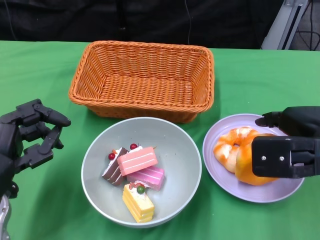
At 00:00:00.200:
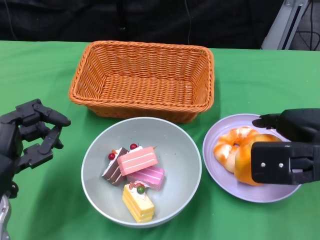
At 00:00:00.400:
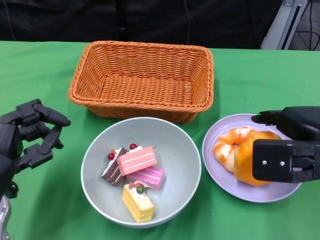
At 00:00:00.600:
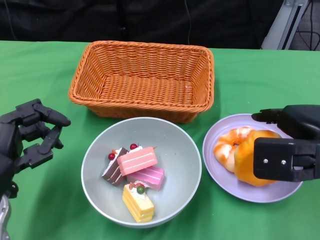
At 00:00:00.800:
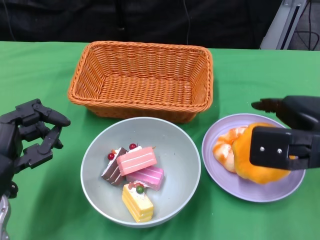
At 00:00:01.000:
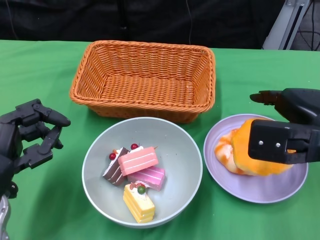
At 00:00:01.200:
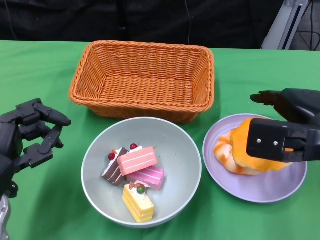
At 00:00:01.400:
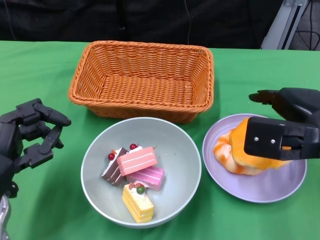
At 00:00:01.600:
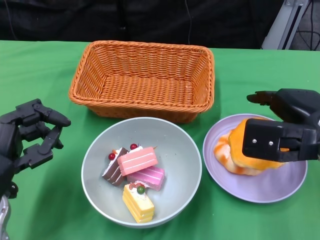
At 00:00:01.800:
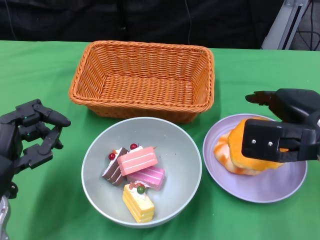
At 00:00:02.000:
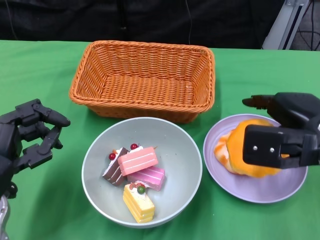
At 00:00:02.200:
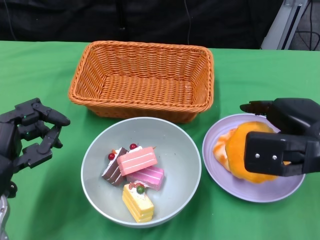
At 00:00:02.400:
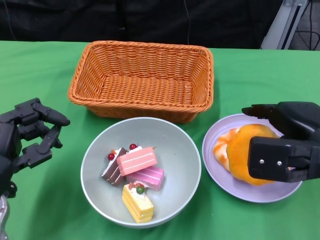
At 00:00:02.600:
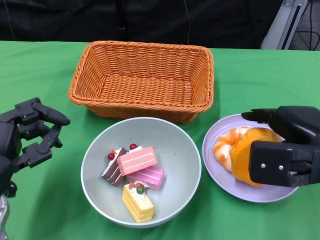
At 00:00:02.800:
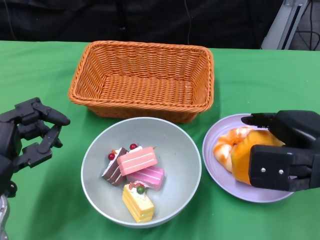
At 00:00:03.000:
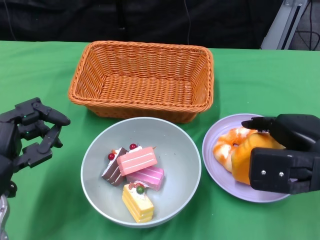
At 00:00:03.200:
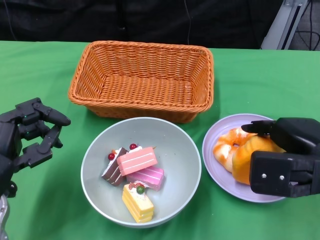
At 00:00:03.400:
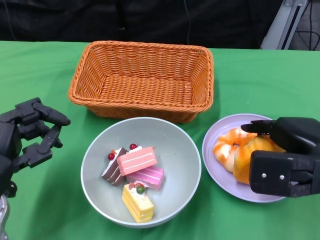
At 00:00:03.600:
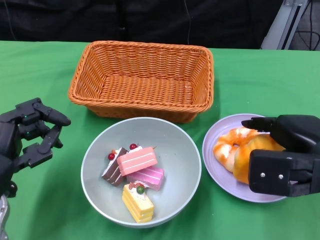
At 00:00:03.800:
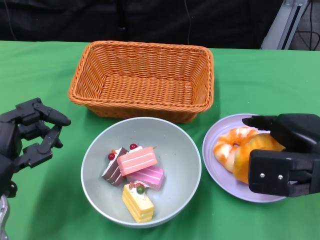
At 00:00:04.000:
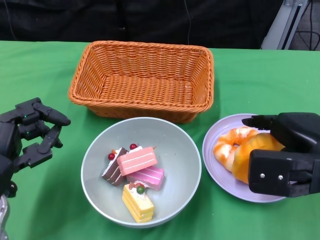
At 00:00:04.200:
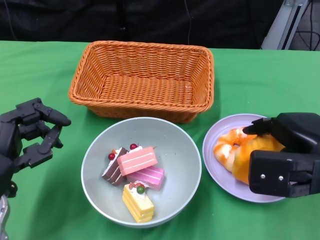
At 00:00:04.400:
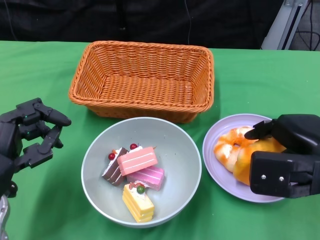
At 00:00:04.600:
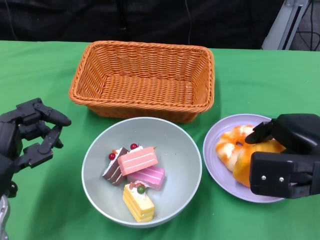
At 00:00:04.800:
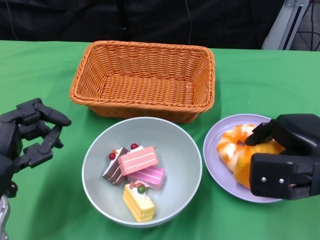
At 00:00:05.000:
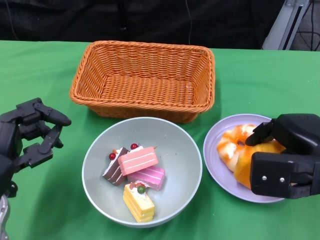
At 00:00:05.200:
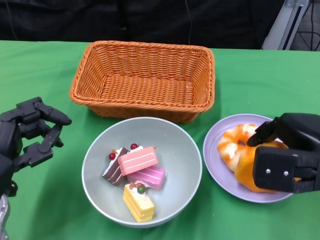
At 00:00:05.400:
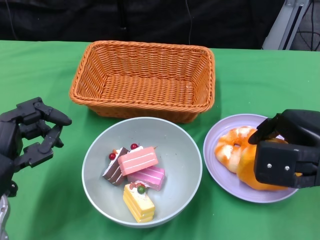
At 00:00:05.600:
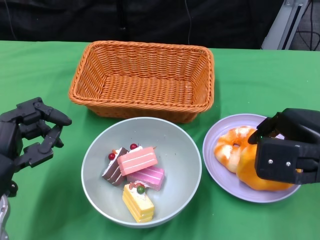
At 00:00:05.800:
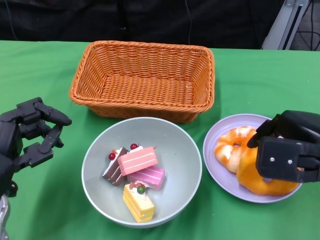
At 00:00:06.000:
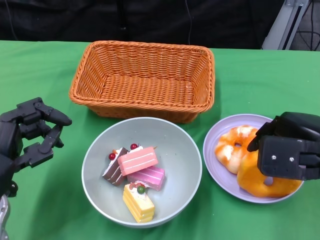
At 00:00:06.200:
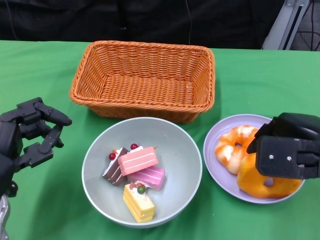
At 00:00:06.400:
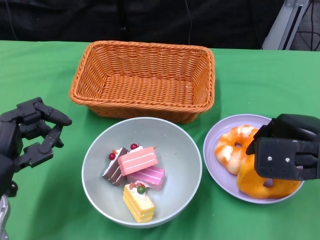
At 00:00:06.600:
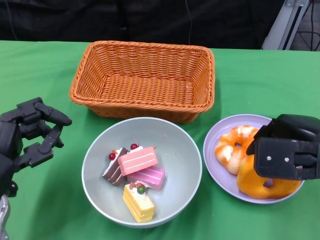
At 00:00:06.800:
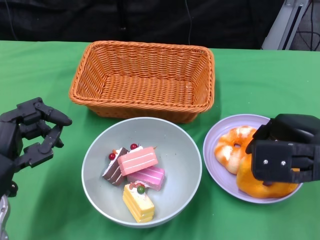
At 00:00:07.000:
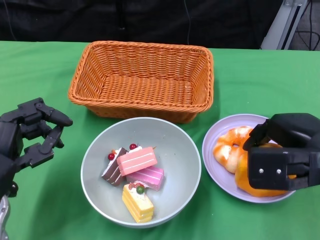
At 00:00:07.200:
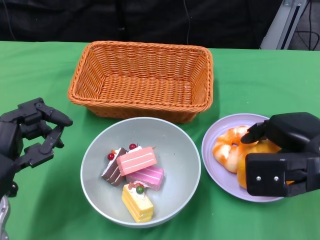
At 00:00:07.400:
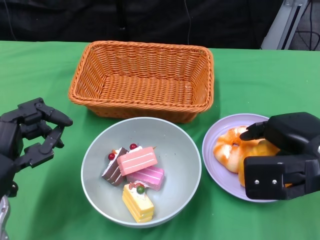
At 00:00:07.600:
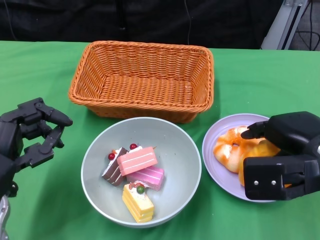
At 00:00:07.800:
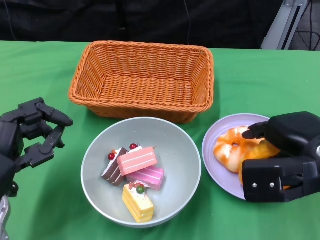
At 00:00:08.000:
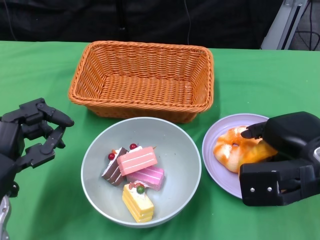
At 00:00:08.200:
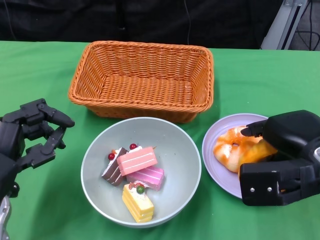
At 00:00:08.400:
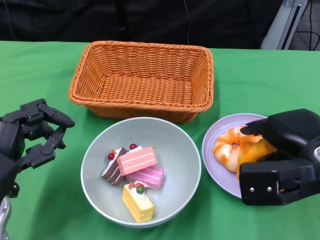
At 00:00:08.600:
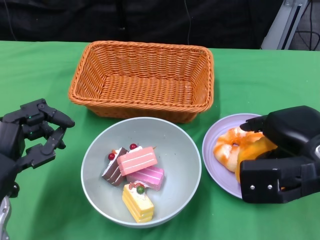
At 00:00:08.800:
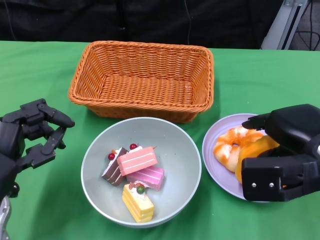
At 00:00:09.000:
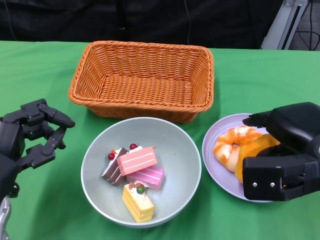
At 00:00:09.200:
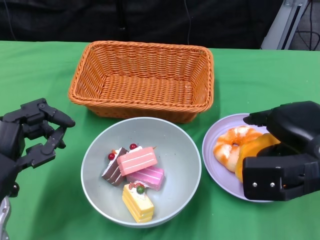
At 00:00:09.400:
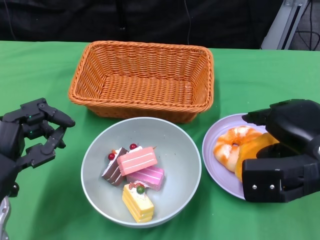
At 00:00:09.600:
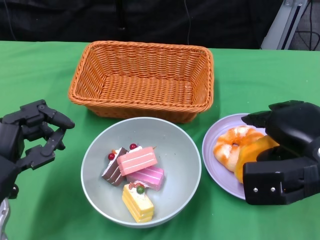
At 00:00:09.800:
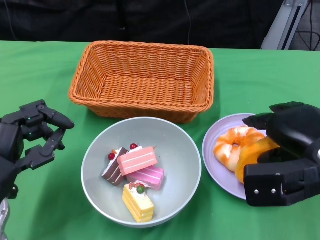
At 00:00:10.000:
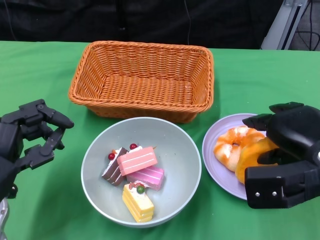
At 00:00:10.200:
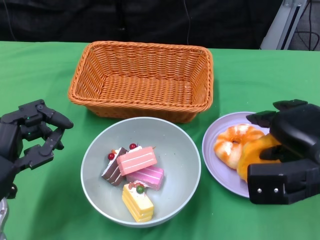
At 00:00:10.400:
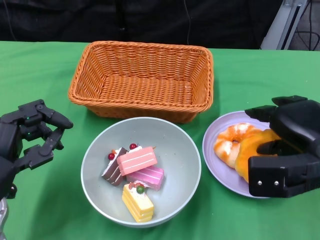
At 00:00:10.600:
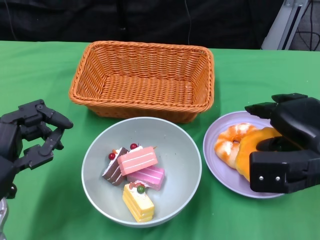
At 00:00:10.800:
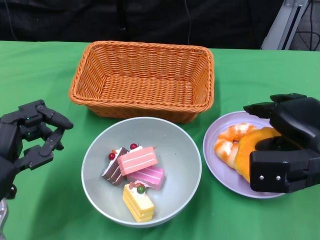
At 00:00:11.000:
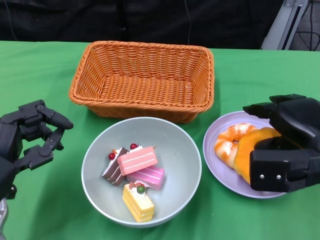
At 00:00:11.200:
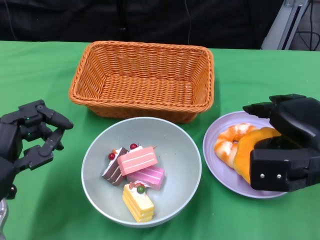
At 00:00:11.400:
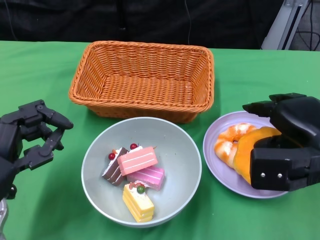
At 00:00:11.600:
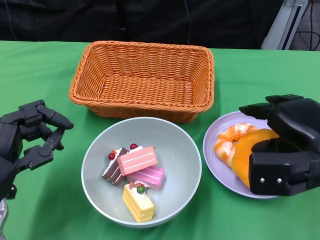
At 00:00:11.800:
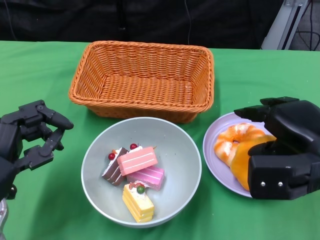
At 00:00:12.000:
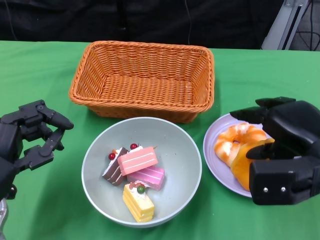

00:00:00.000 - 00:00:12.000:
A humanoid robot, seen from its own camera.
00:00:00.000 - 00:00:03.000: The hands make only small movements.
00:00:03.000 - 00:00:04.400: Neither hand changes place.
00:00:04.400 - 00:00:12.000: The hands stay close to where they were, moving slightly.

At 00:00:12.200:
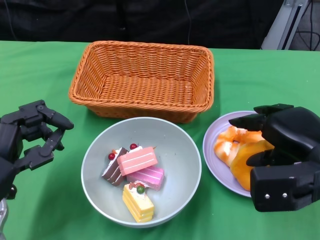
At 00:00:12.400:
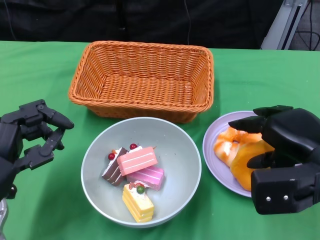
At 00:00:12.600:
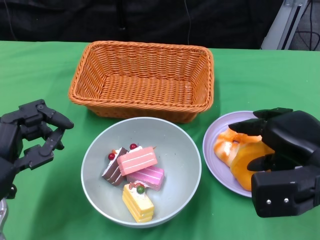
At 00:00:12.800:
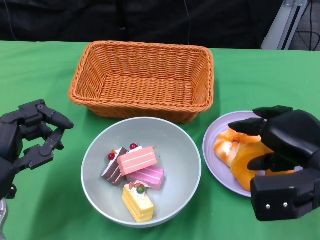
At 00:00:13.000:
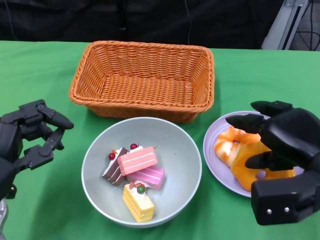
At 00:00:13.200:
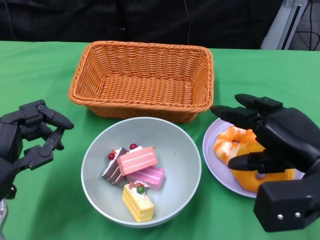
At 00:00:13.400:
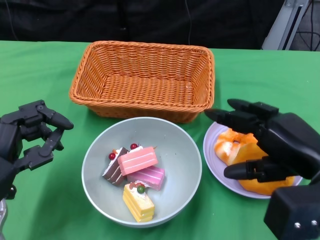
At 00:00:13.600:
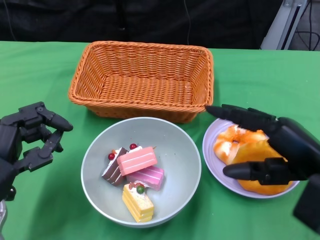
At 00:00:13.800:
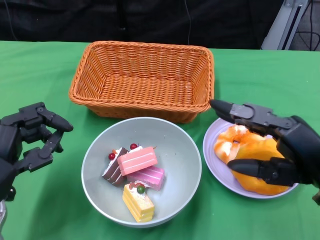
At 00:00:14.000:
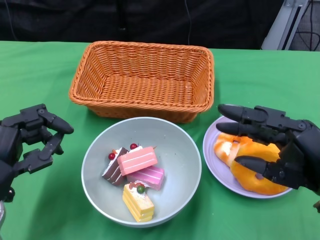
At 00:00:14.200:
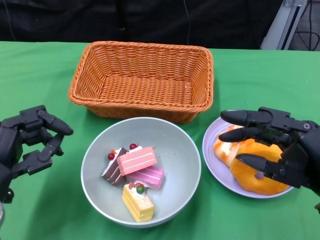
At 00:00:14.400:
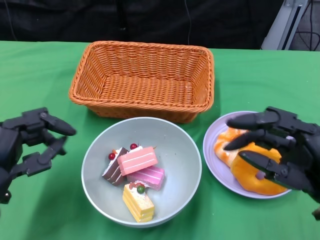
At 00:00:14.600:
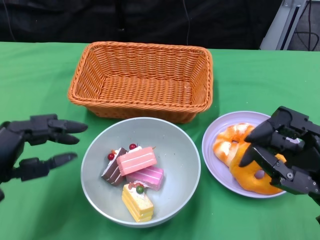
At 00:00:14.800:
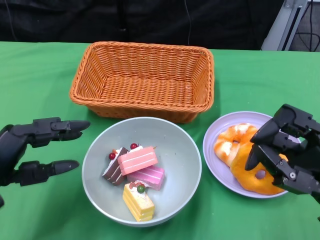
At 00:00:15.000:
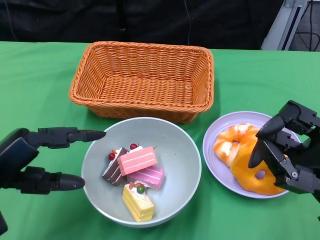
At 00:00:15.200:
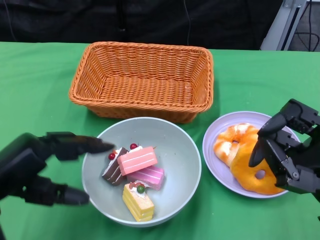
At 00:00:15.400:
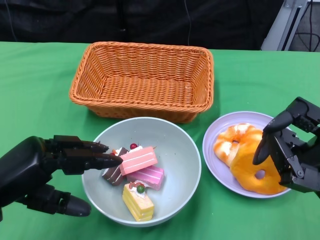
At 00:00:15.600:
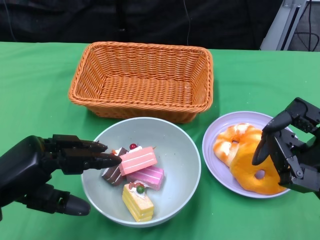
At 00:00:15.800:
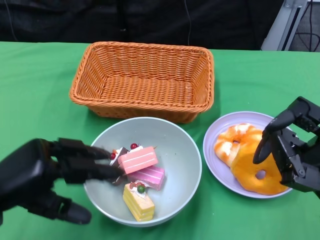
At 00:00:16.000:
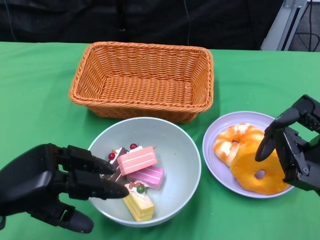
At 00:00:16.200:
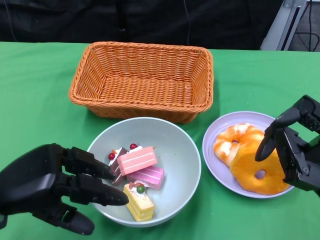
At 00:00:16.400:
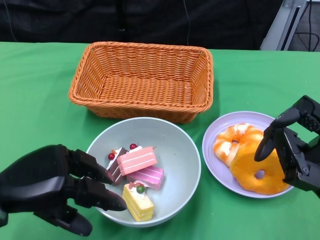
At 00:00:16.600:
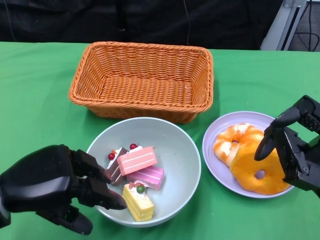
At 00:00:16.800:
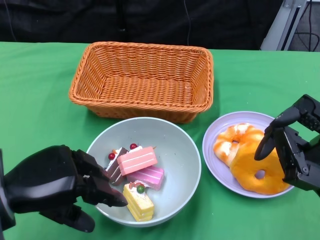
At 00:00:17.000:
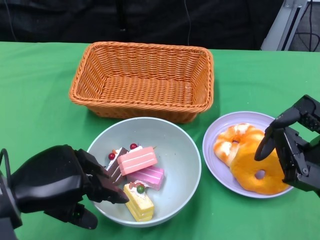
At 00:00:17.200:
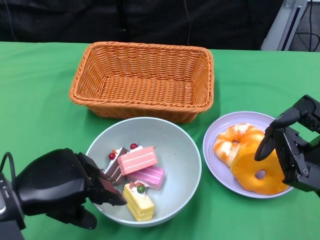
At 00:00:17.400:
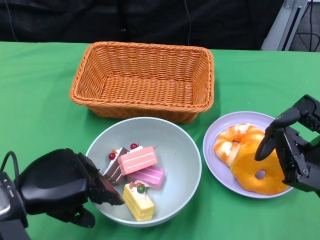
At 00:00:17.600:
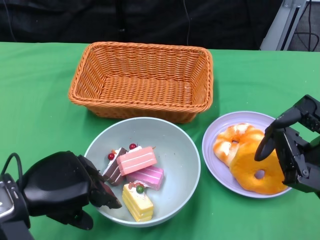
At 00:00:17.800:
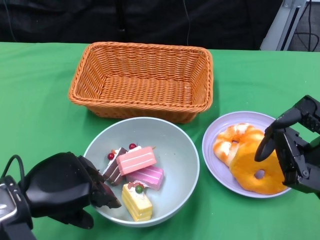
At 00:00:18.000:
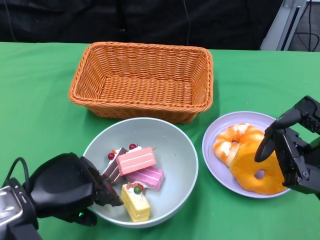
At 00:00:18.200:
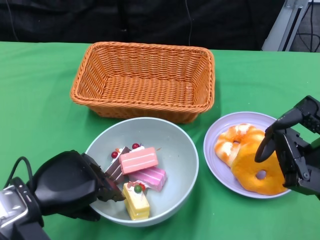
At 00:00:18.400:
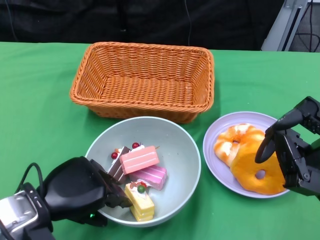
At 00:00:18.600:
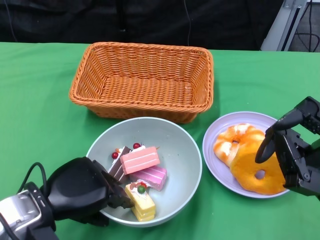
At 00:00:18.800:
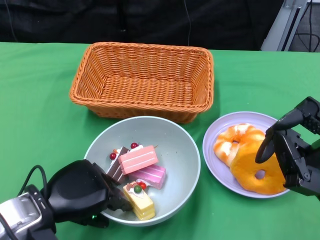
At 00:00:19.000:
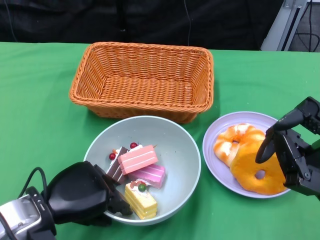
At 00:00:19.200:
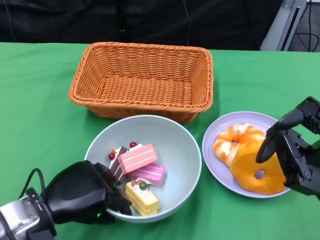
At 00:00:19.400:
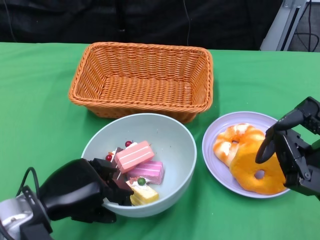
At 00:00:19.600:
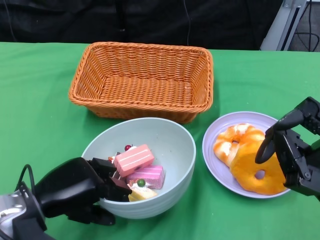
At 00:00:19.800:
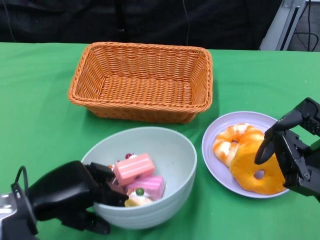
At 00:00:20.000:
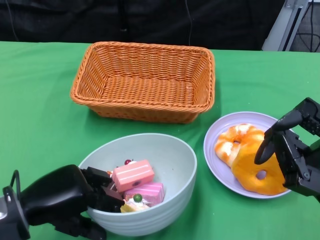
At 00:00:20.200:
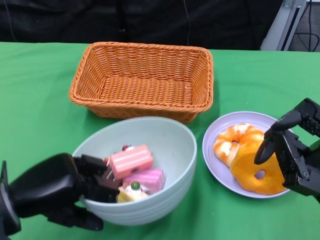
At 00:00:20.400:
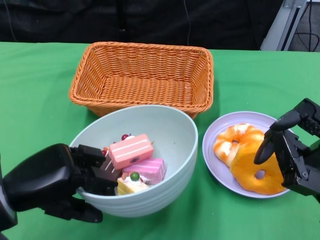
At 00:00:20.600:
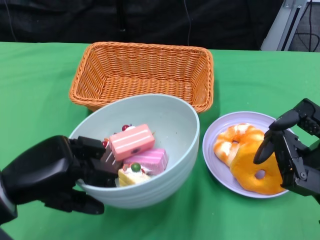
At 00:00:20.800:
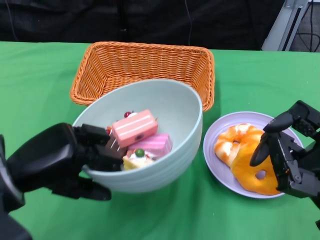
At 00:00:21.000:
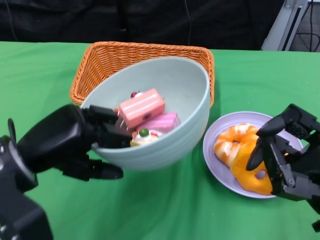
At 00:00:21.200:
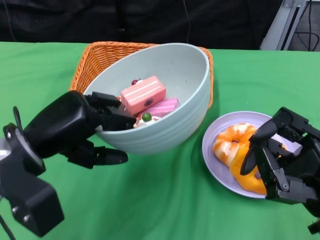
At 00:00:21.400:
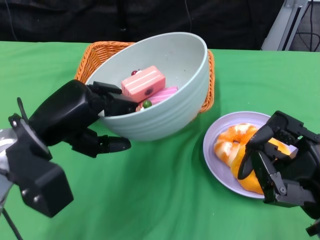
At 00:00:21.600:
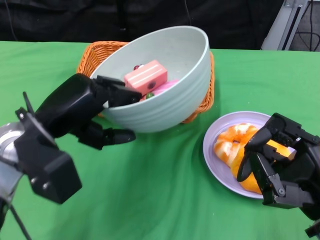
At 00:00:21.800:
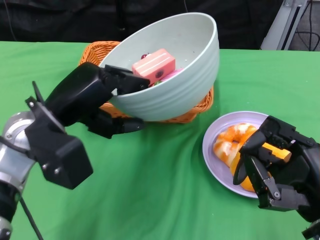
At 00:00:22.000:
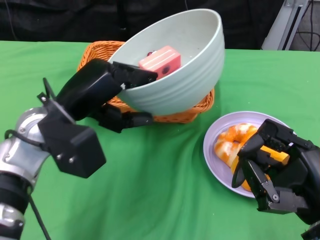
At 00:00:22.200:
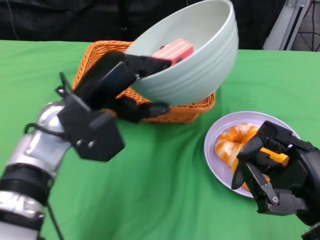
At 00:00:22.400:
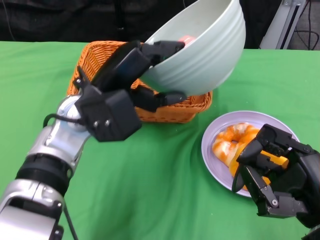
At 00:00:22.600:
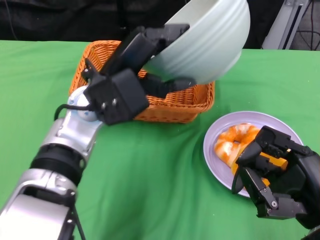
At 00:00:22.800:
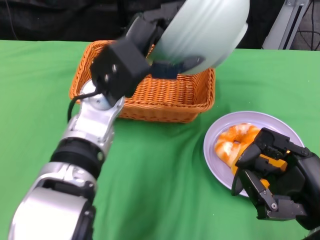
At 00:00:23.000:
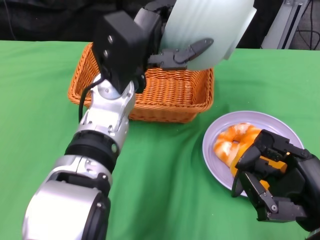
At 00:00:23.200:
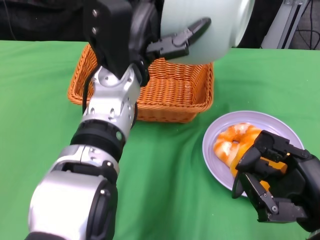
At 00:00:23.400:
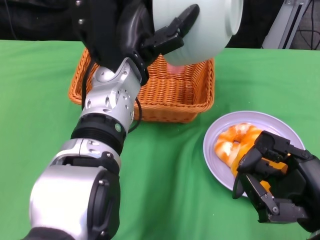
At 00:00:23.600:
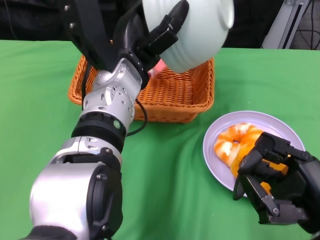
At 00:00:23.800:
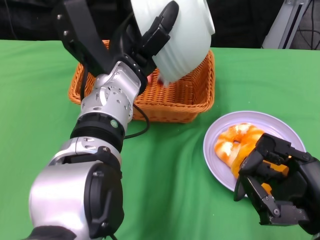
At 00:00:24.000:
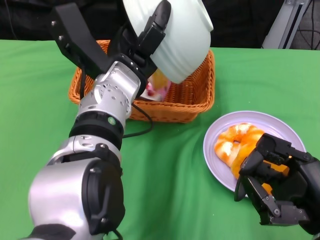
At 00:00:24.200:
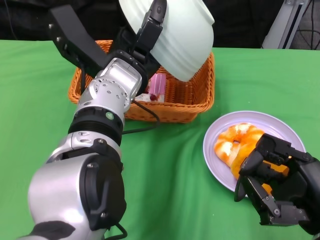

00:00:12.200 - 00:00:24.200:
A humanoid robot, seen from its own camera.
Step, 00:00:12.200 - 00:00:15.000: Pick up the bread with the right gripper and place it on the plate.
Step, 00:00:15.200 - 00:00:19.200: Grasp the bowl with the left gripper.
00:00:19.800 - 00:00:21.200: The left hand travels upward by about 5 cm.
00:00:21.200 - 00:00:22.600: The left hand is displaced to the right and forward by roughly 10 cm.
